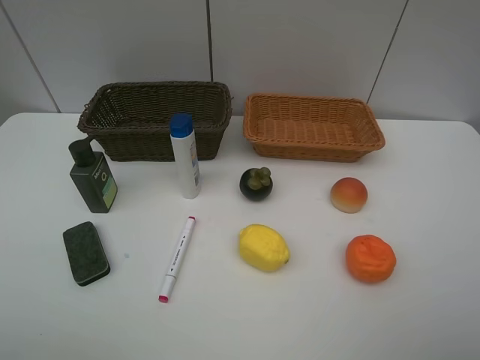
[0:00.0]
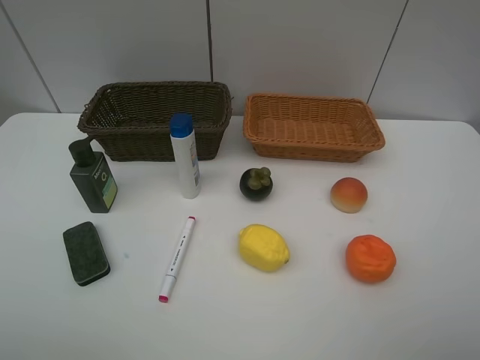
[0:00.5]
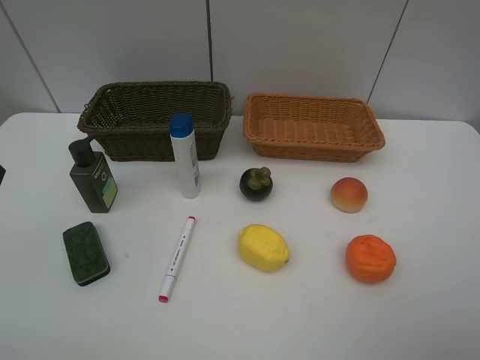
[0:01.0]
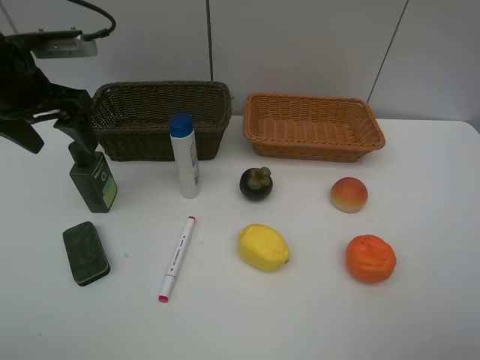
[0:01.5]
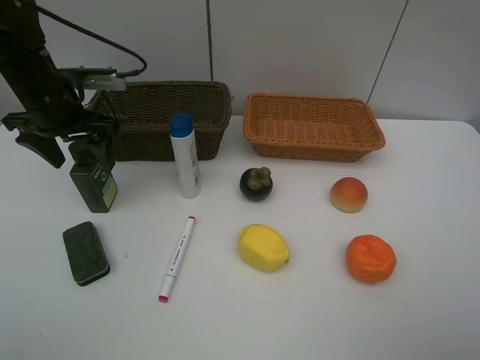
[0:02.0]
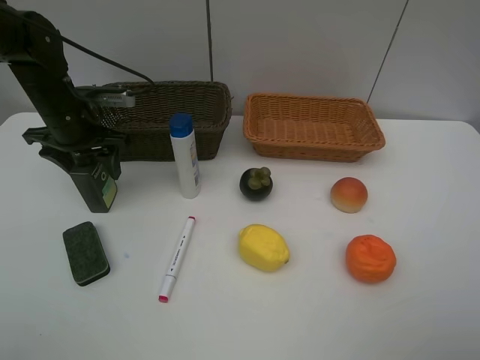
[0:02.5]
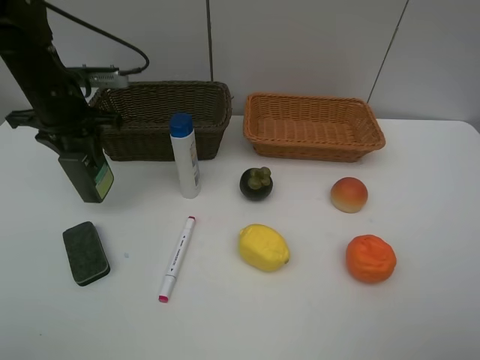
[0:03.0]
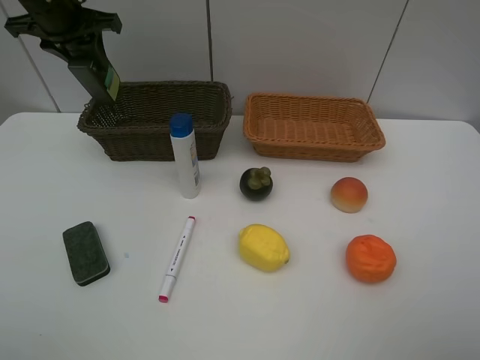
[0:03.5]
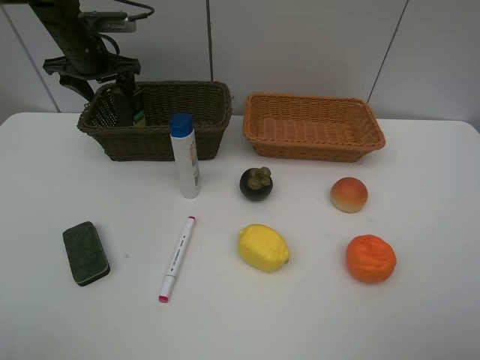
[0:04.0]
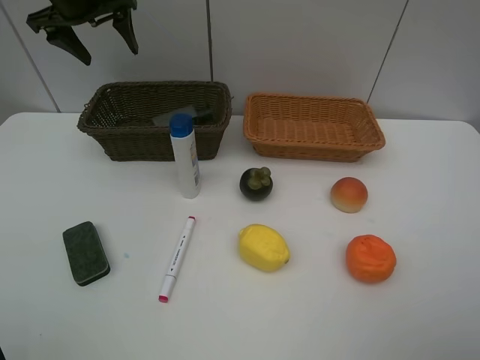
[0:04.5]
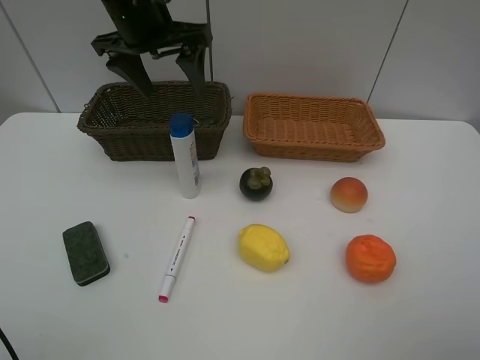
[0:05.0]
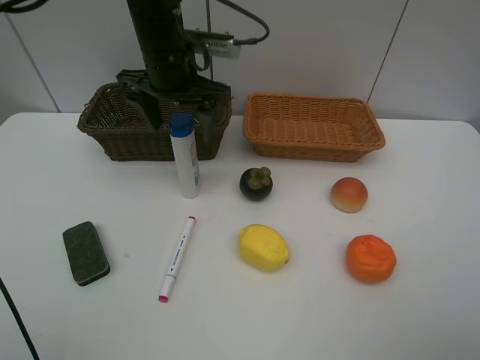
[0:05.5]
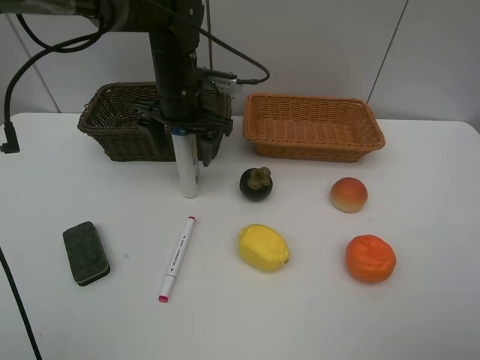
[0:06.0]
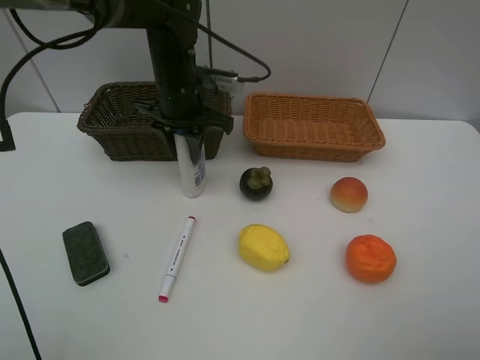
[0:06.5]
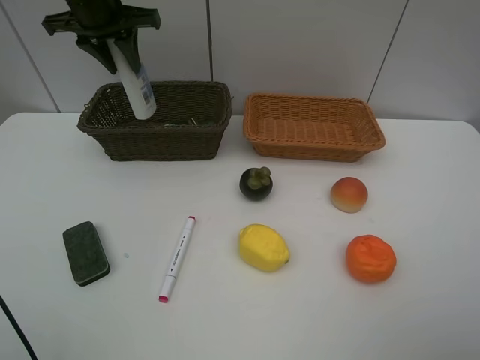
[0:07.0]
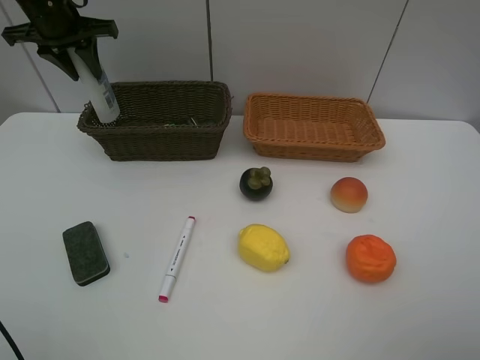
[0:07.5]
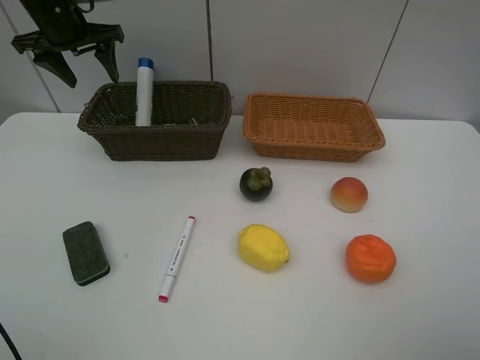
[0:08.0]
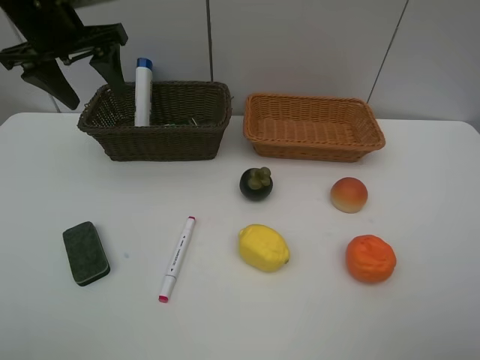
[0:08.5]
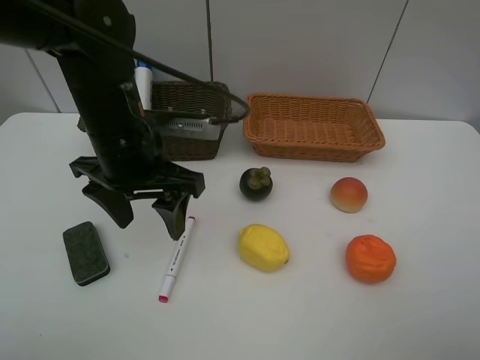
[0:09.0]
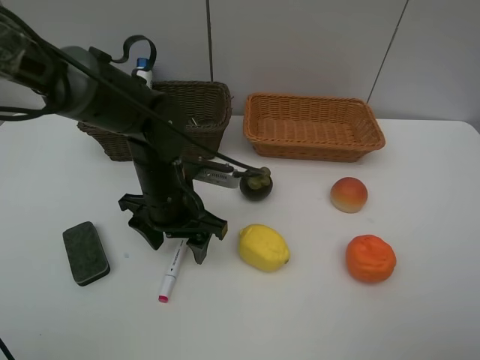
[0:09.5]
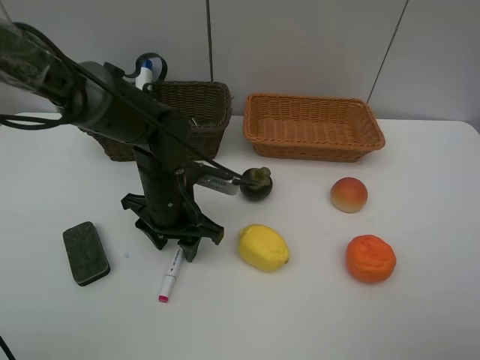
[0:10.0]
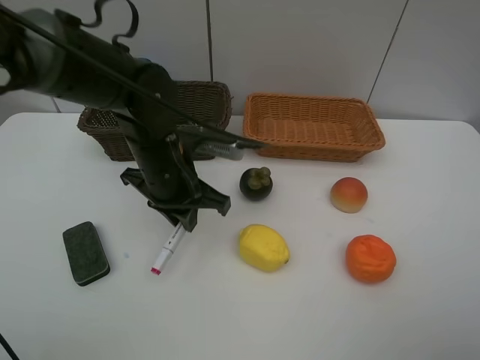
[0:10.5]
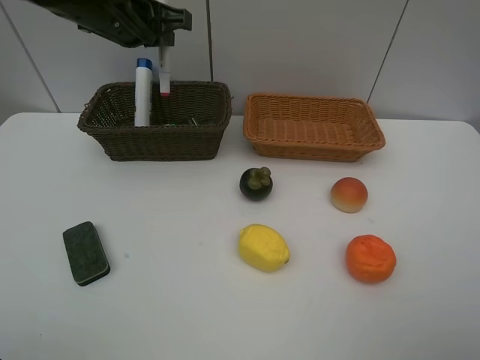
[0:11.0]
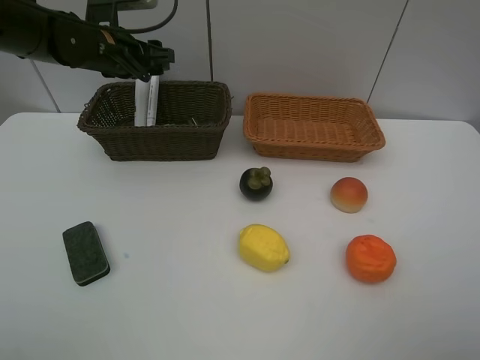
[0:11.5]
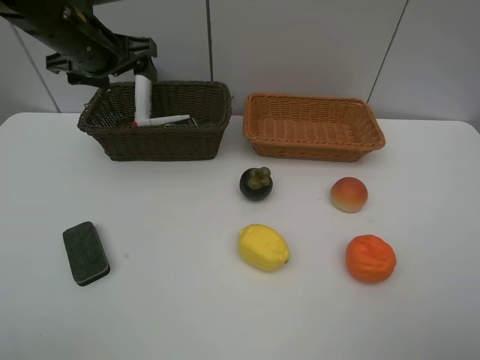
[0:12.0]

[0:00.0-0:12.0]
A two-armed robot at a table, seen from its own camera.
Task of the whole recording: Place multiple objects separately in different baskets.
Step, 0:00.0 to 0:03.0: Pick up the hard facial cleanser with left gripper.
Step, 0:03.5 to 0:04.0: Place the hard facial cleanser in the dark basket with left gripper.
Step, 0:04.5 to 0:06.5: Pick up the shampoo with left gripper.
Step, 0:07.0 to 0:08.0: Place the shampoo in the dark basket with left gripper.
Step, 0:08.5 to 0:10.5: Pick up the red marker with left gripper.
Step, 0:11.0 to 0:11.5: Place the red marker in the dark basket with left gripper.
0:00.0 to 0:02.0: The left gripper heads forward, covering roughly 35 cm.
0:02.0 to 0:04.0: The left gripper goes approximately 15 cm forward, and closes, then reopens.
0:04.0 to 0:06.0: The left gripper goes roughly 20 cm to the right and backward.
0:06.0 to 0:08.0: The left gripper goes roughly 20 cm to the left, upward and forward, and closes, then opens again.
0:08.0 to 0:10.0: The left gripper goes roughly 30 cm backward, to the right and downward, and closes.
0:10.0 to 0:12.0: The left gripper goes up and down, about 20 cm each way, reversing 2 times, and opens.

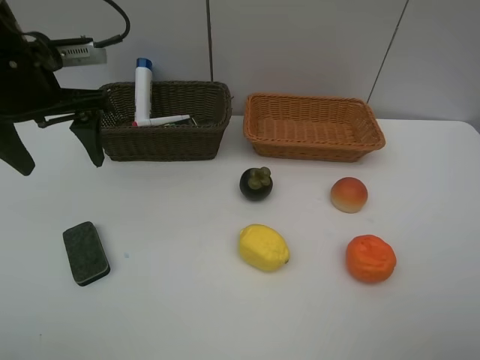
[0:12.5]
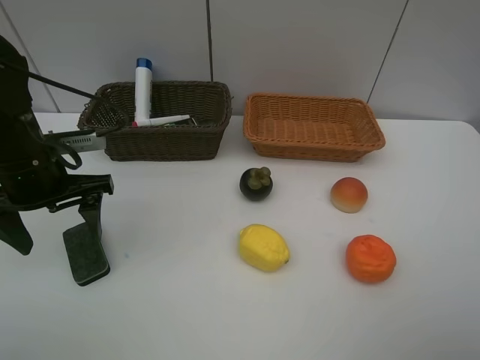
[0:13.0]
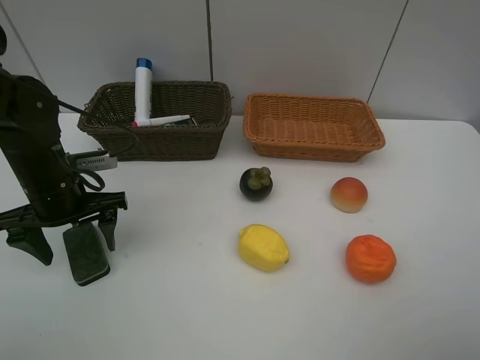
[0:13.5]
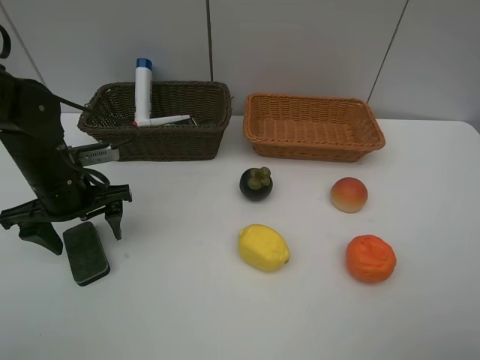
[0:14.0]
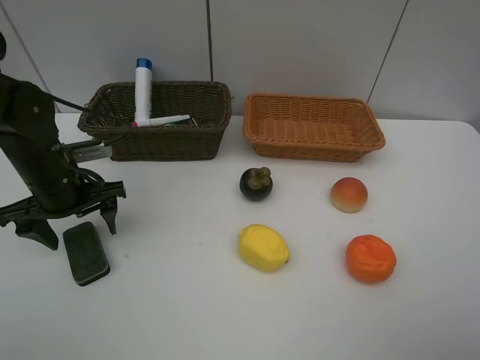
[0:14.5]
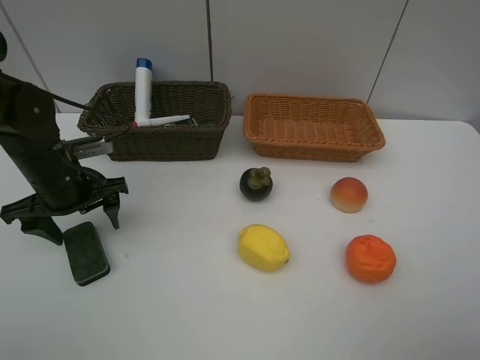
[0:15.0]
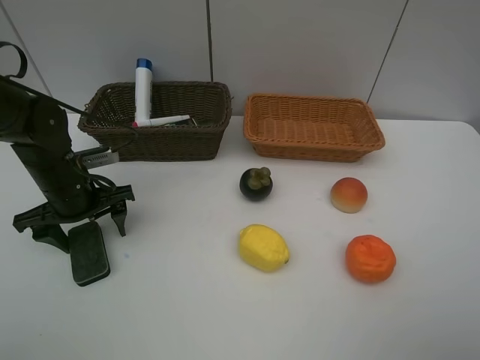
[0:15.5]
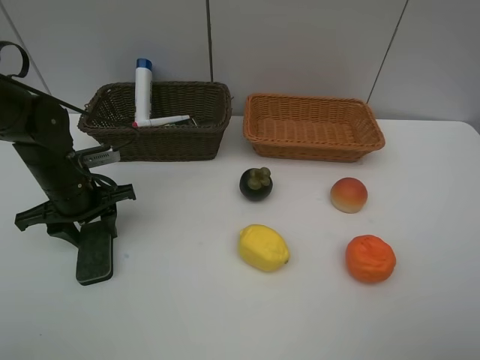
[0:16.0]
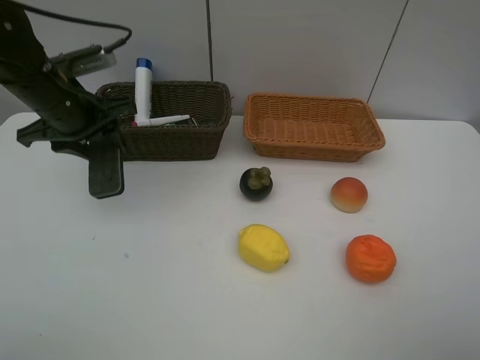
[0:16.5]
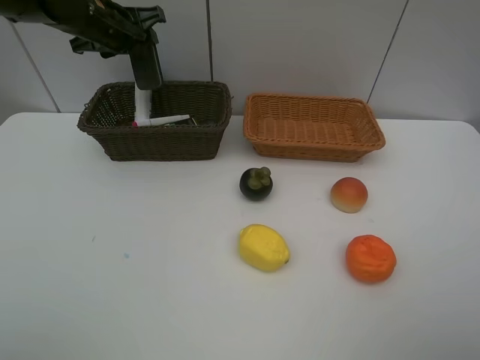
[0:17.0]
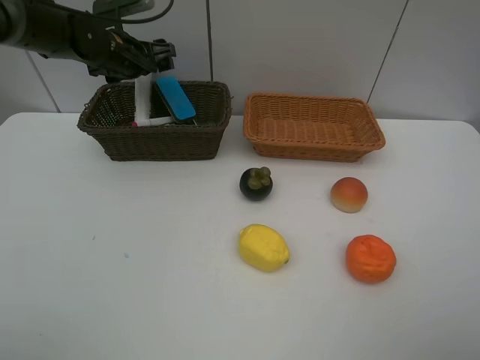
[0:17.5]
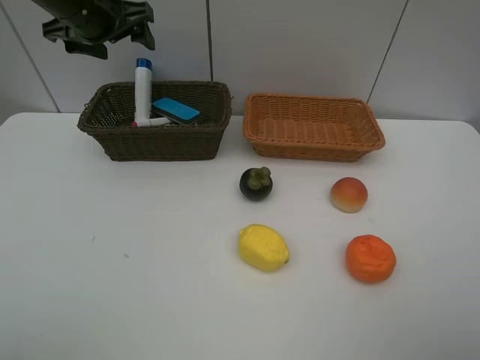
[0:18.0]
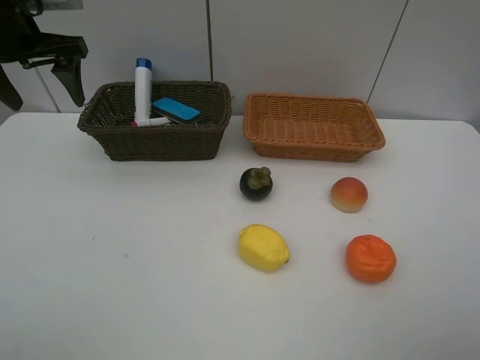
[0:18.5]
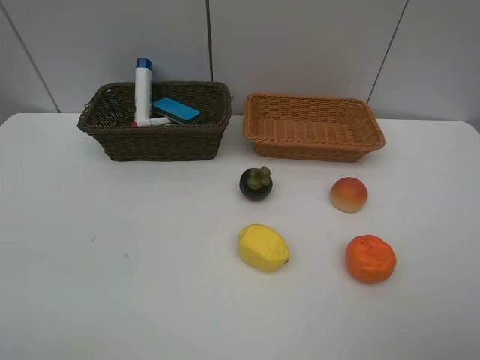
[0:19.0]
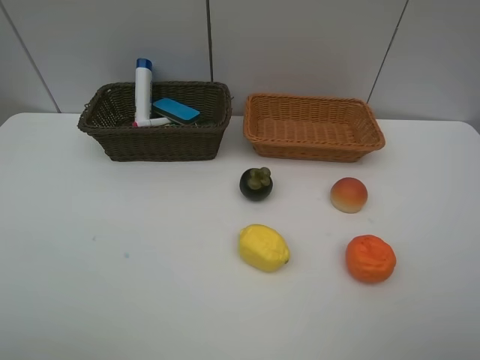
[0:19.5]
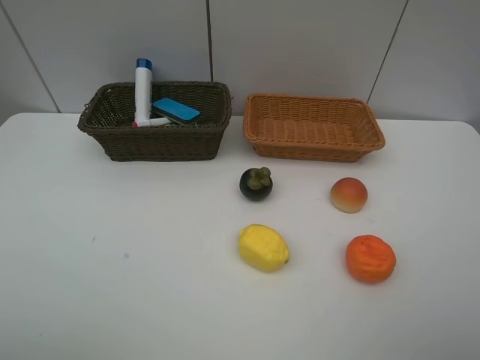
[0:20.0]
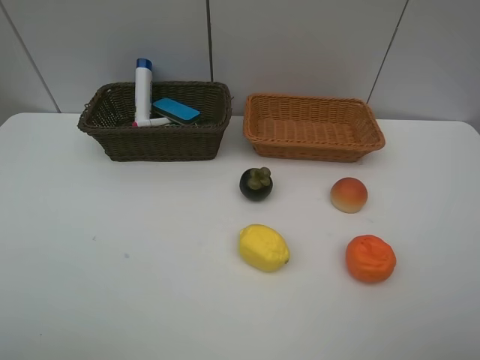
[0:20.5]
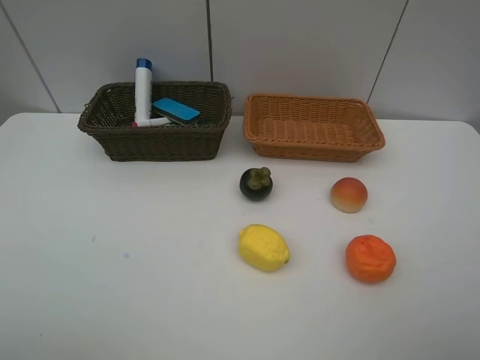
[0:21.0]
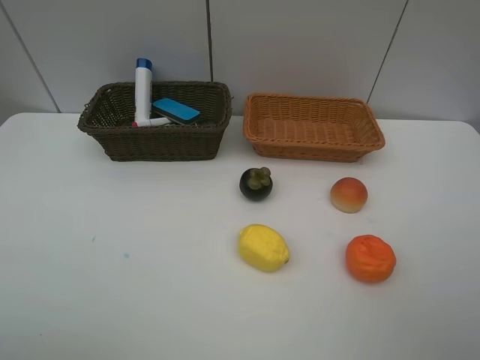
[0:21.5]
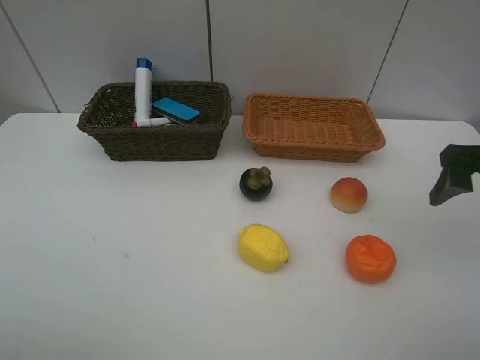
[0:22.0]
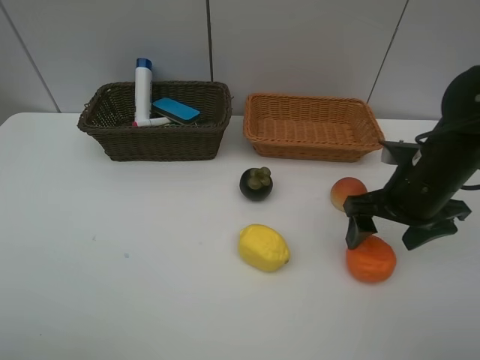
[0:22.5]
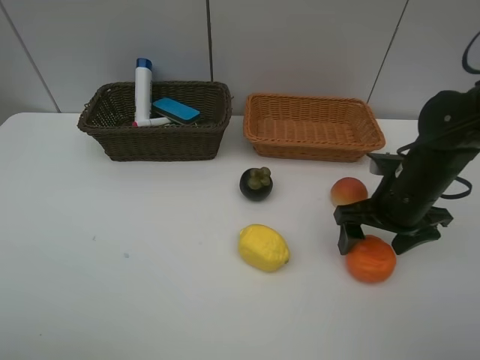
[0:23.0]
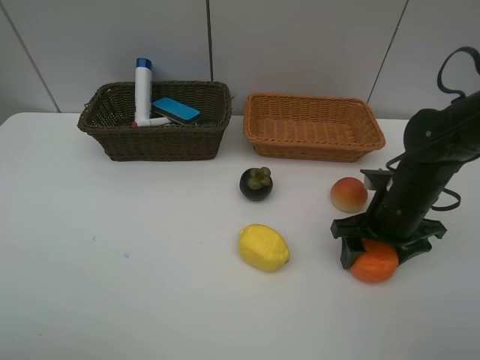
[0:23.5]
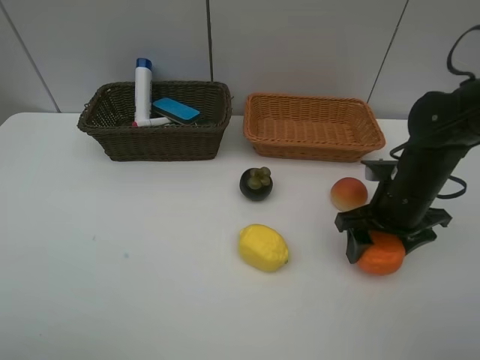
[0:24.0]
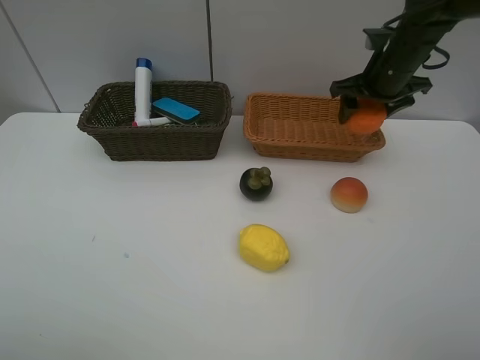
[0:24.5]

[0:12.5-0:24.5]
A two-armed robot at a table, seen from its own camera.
Task of the whole recording: Place multiple objects separately in different baskets.
Step, 0:12.5 to 0:16.0: Pick up blackboard eraser with left gripper.
Step, 0:16.5 to 0:17.5: Place the blackboard eraser in the dark basket with left gripper.
Step, 0:18.0 to 0:24.0: Pick up the orange with right gripper.
0:12.5 to 0:14.5: The left gripper heads downward, covering approximately 15 cm.
0:14.5 to 0:16.5: The left gripper travels upward and forward by some 15 cm, and closes up.
0:16.5 to 0:18.5: The left gripper heads upward, covering roughly 5 cm, goes forward and returns, roughly 10 cm each way, and opens its fingers.
0:18.5 to 0:20.5: The left gripper moves backward, about 35 cm.
0:20.5 to 0:22.5: The right gripper moves forward and downward, about 25 cm.
0:22.5 to 0:24.5: The right gripper shifts some 20 cm forward, and closes.

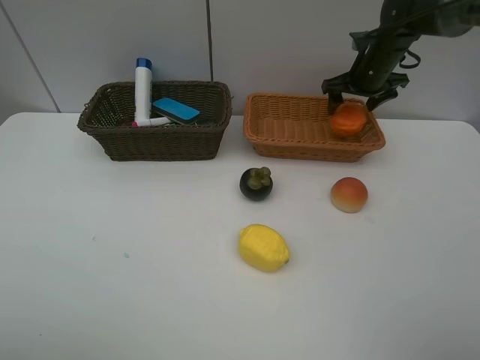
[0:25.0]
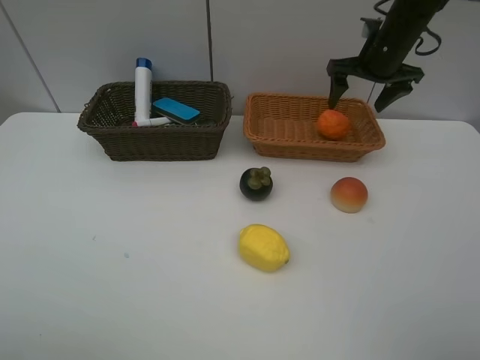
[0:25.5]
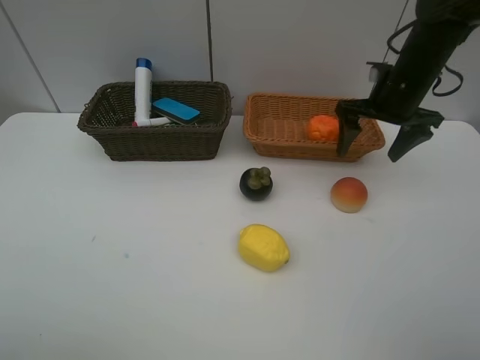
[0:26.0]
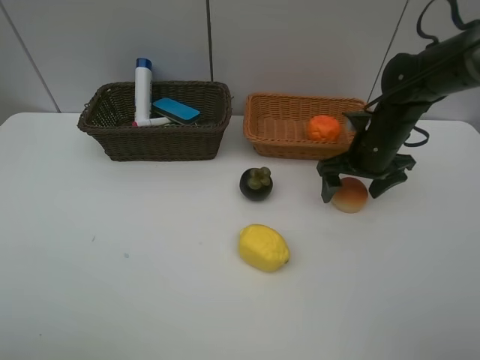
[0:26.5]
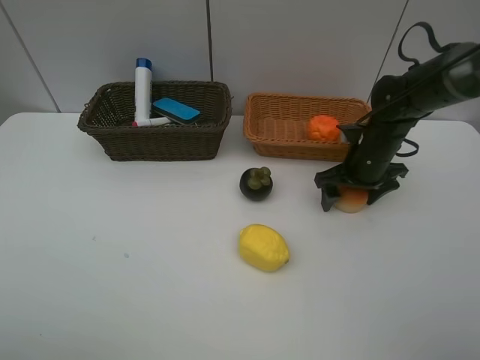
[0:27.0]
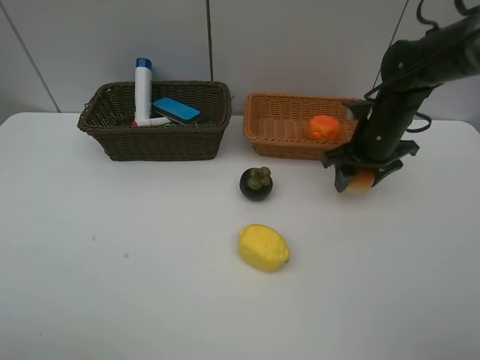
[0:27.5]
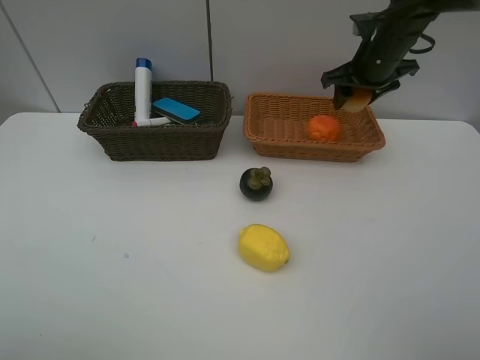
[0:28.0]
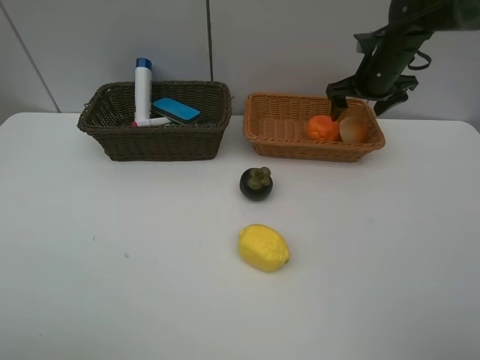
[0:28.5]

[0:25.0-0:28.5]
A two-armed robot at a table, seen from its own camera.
Task of the whole recording: Place multiple objects separately in different baskets.
Step, 0:25.5 to 0:27.5: Pick up egg yolk pastry with right gripper.
0:25.0 to 0:27.0: The right gripper travels backward and downward by some 15 cm.
0:27.0 to 0:28.5: The right gripper goes approximately 15 cm forward and upward, and closes and opens again.
